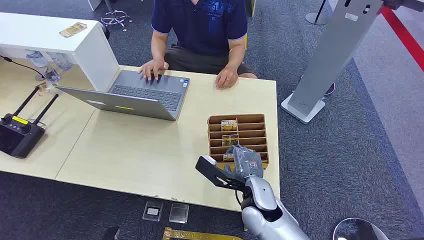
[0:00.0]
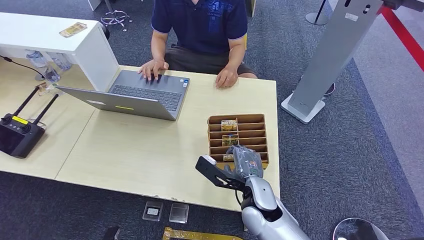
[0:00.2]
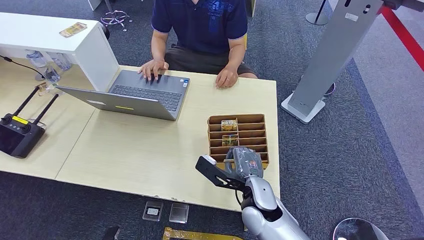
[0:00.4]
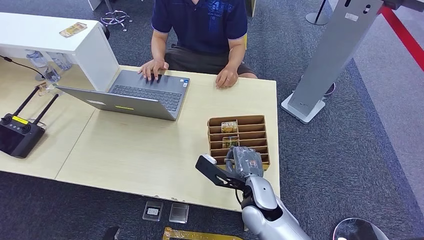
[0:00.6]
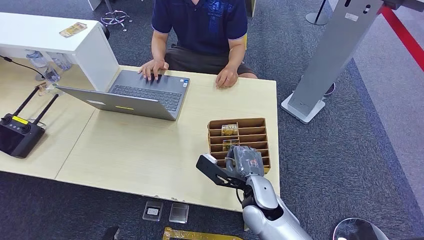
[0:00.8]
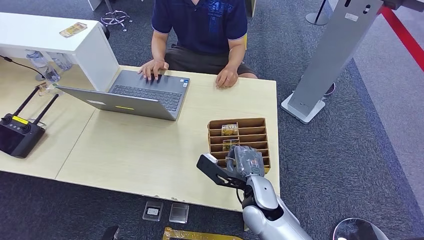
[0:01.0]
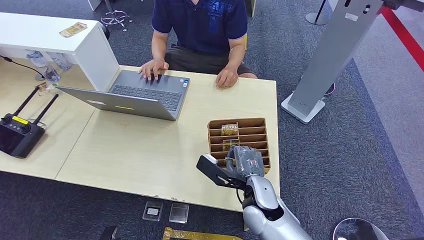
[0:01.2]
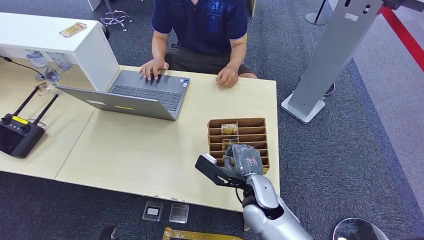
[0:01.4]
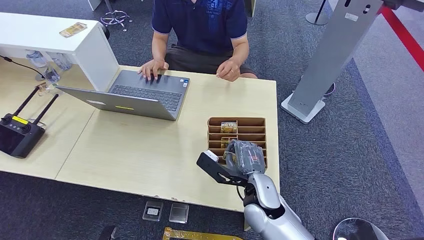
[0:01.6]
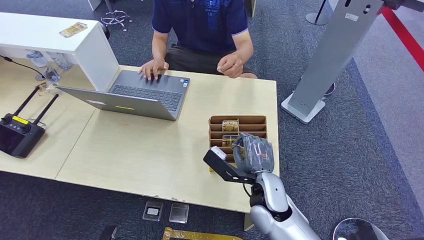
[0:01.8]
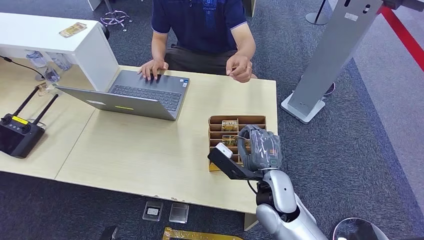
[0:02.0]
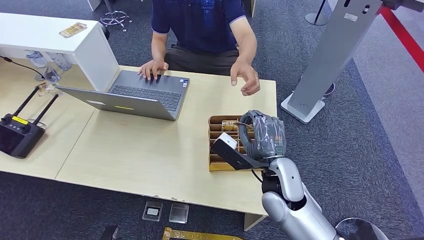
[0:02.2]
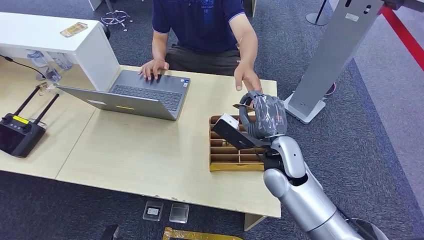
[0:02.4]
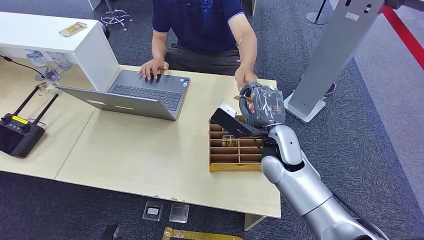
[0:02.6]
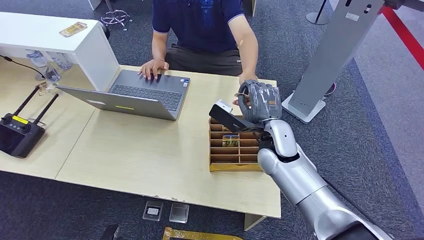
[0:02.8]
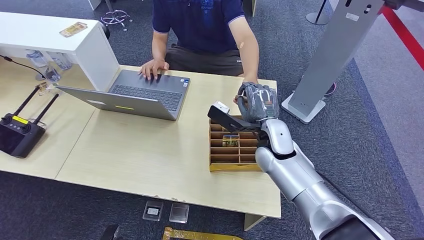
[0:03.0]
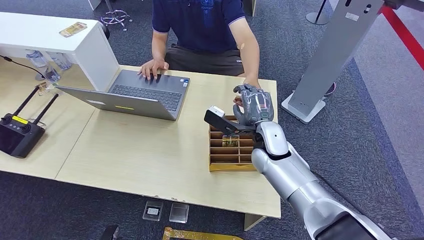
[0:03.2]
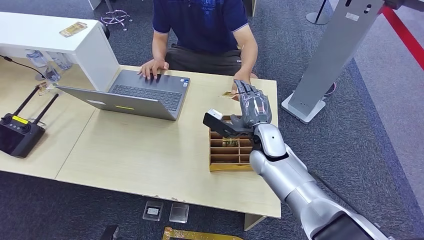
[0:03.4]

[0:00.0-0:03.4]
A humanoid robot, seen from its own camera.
Step, 0:00.0 to 0:02.0: Pick up the room card from the card holder.
Step, 0:02.4 to 0:03.4: Hand the room card to the target.
0:01.6 to 0:03.4: The right hand is displaced forward and upward by roughly 15 cm.
